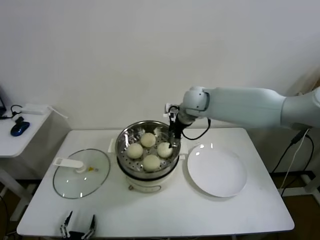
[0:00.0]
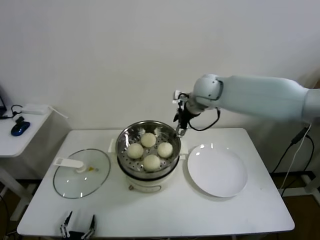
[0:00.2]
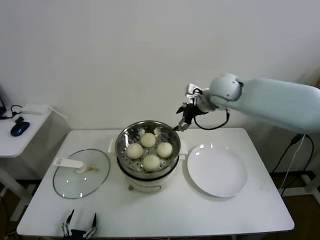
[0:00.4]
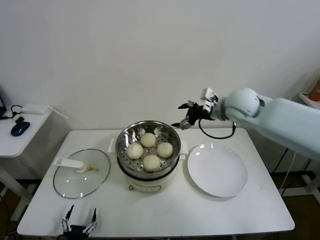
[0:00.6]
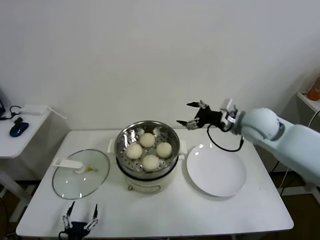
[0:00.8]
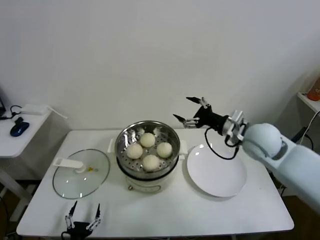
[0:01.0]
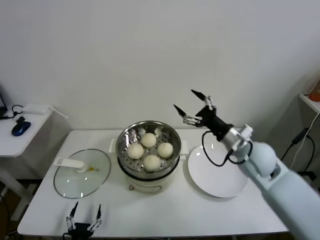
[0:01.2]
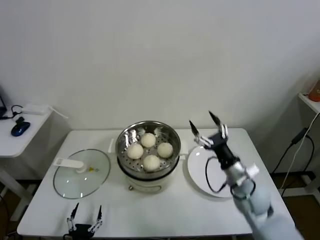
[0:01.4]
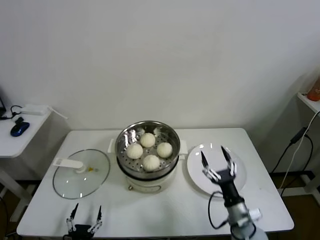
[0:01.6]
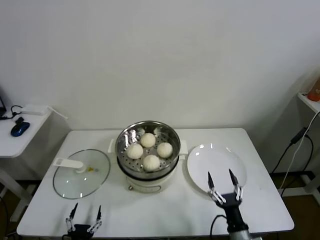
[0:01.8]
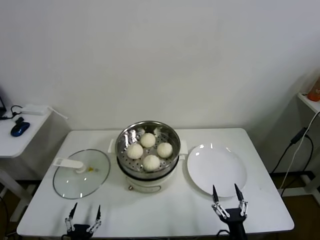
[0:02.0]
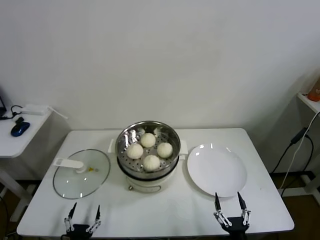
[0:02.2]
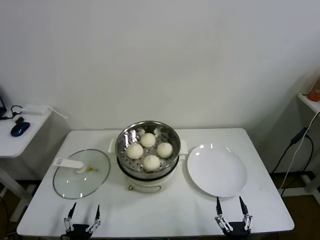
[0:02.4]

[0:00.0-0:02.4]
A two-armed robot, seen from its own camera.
Task of the whole recording: take steamed baozi put them in steamer.
0:00.0 to 0:01.2: The right gripper travels backward and to the right by some 20 cm.
0:01.2 to 0:02.4: The right gripper travels backward and downward by approximately 40 cm.

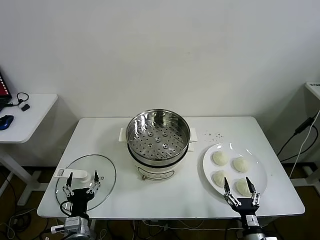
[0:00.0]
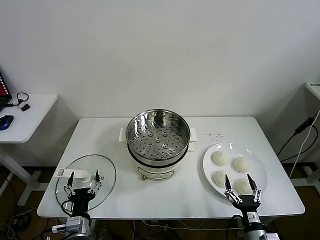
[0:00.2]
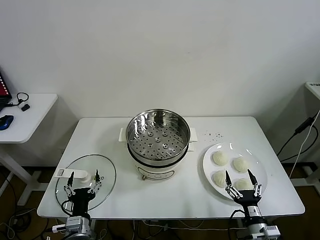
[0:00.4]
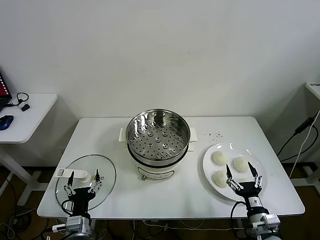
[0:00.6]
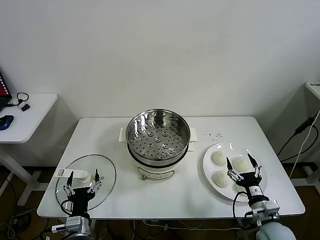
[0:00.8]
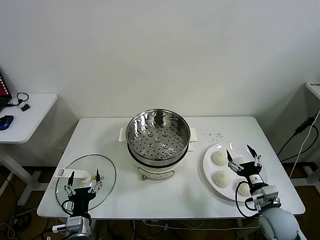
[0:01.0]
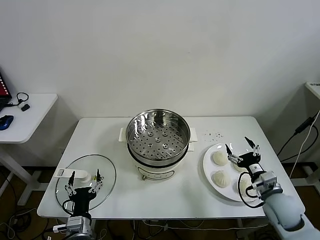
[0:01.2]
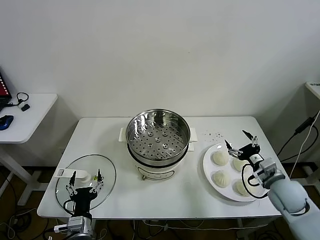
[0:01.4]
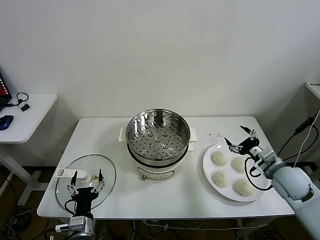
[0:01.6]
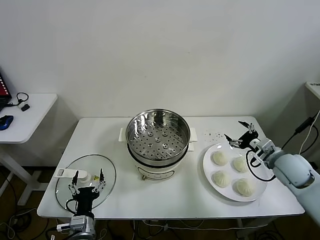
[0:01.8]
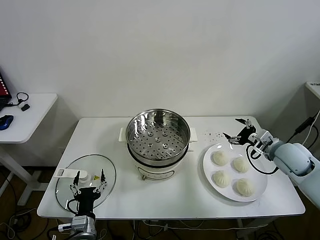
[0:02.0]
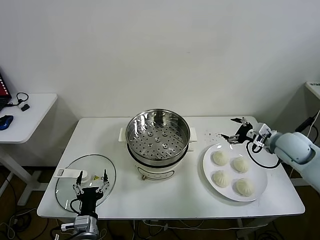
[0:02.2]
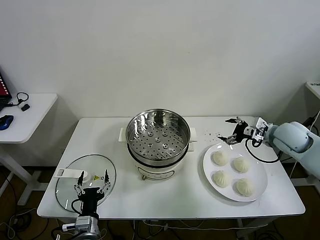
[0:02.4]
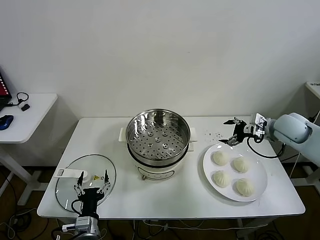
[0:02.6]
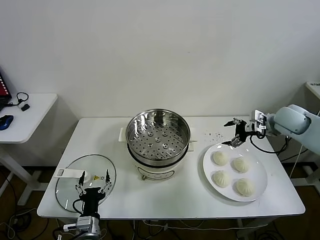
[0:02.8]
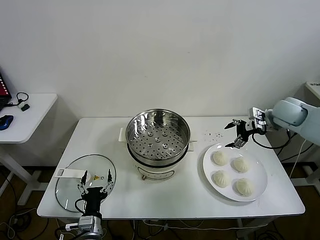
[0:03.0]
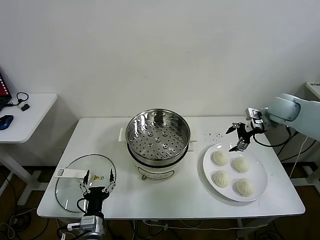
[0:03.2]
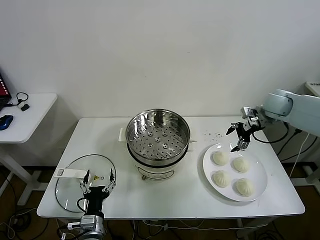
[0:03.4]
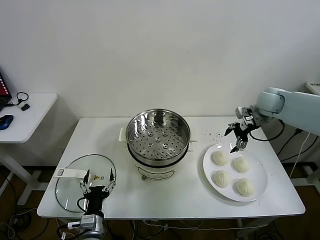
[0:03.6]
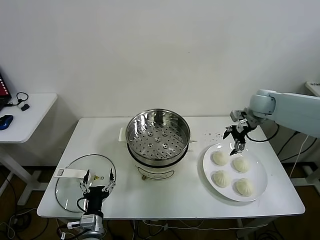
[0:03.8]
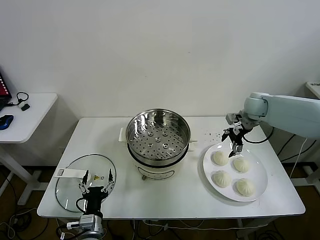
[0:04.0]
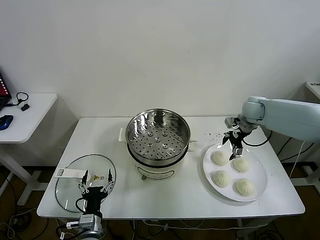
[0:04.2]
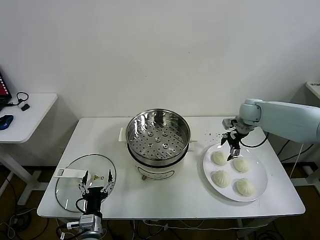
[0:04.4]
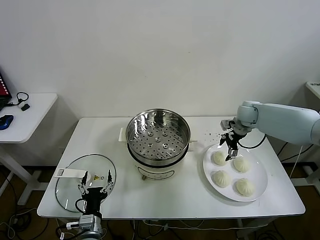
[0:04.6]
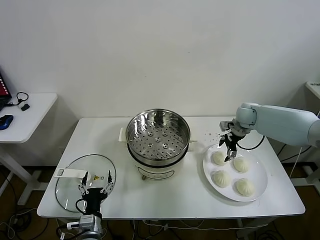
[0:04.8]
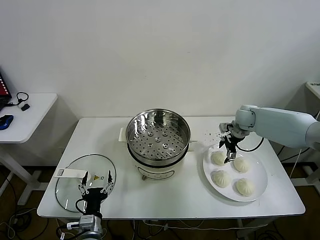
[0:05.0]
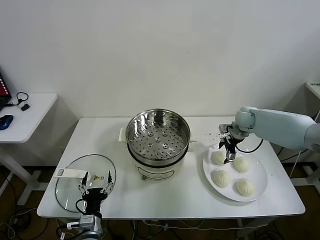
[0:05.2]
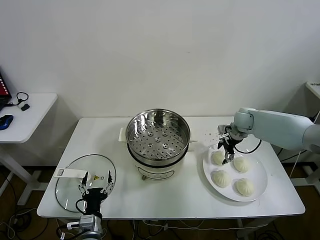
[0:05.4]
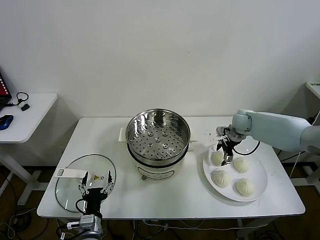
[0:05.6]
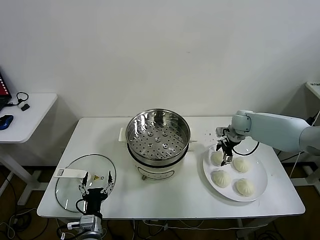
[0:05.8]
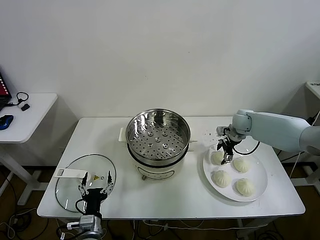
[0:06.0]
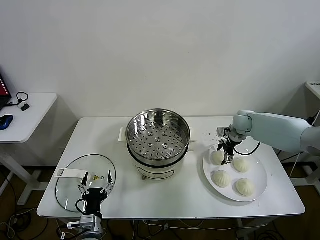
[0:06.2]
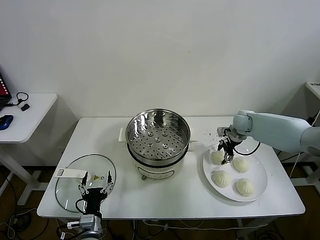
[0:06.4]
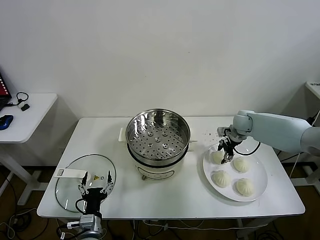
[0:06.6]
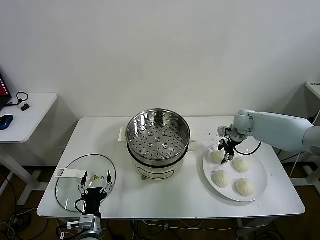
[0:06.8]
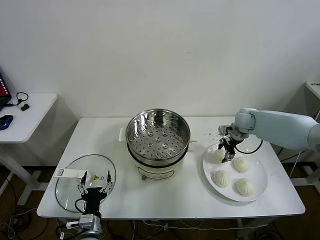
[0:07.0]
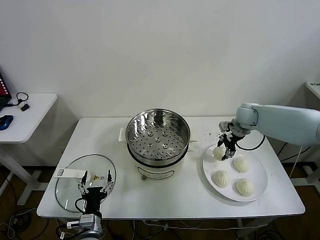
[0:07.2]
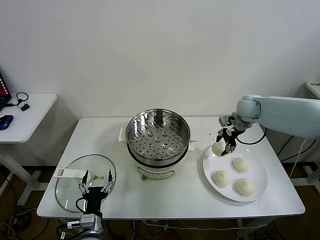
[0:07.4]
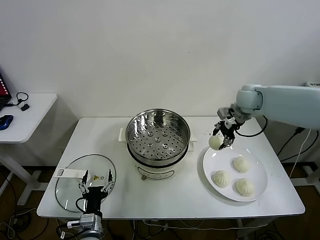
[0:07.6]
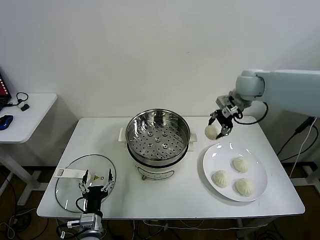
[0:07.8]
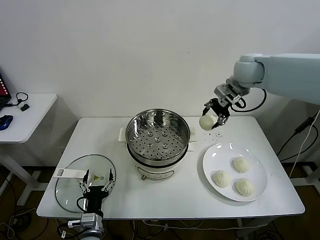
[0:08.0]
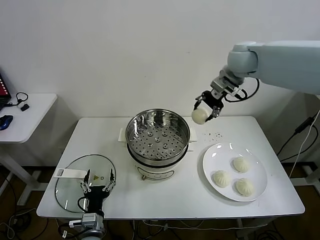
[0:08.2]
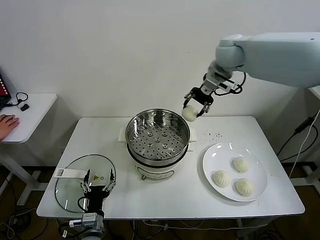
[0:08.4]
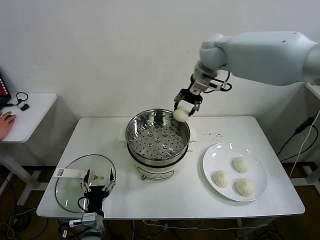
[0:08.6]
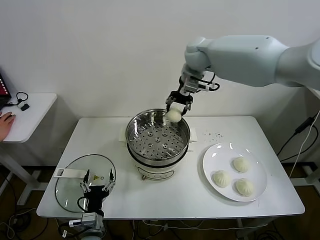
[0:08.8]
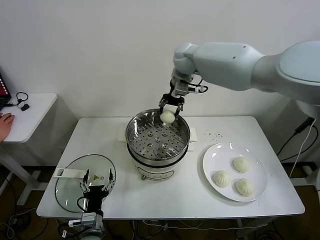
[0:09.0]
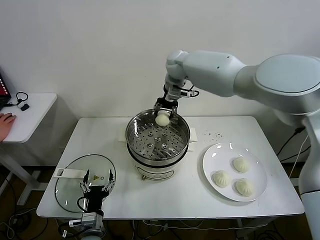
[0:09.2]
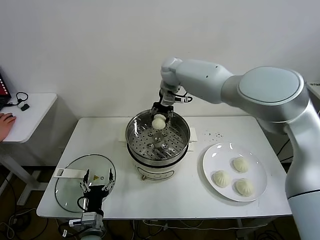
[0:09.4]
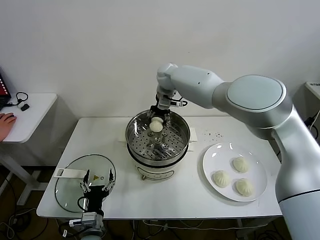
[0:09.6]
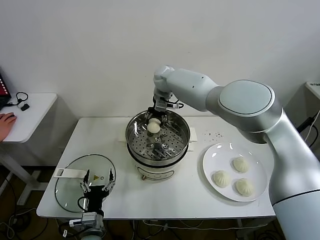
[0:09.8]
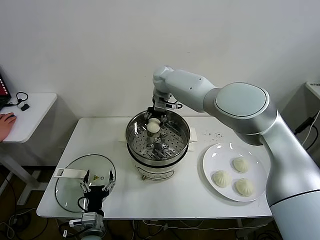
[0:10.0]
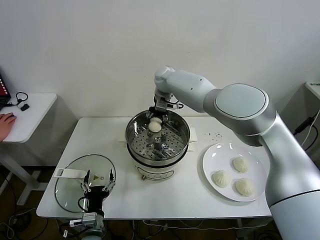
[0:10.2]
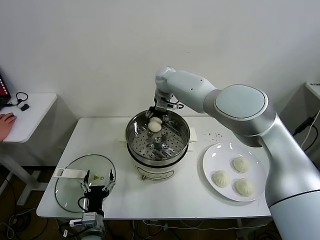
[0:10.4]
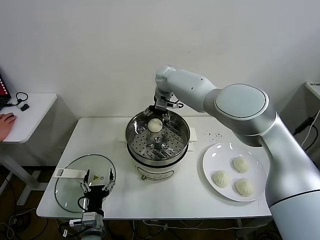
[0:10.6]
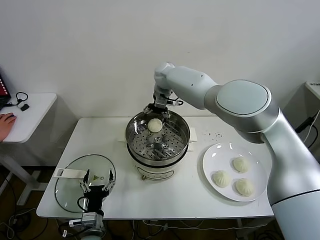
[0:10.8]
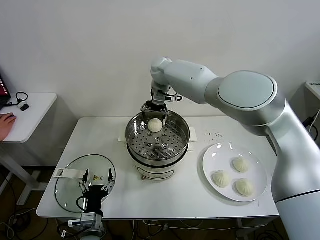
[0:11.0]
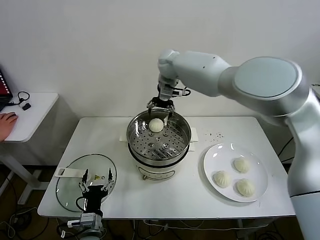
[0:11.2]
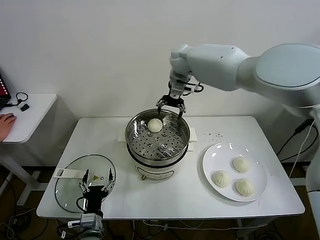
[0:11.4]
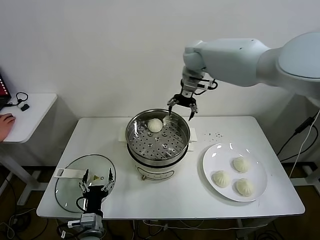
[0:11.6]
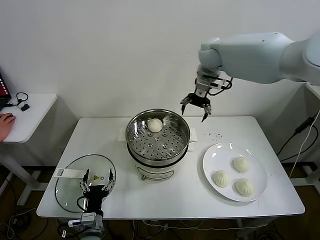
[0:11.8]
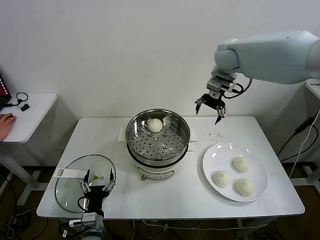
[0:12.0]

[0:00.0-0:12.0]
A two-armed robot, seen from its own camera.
Task of the whole recording: take steamed baozi put them in steamer.
Step, 0:00.0 to 0:06.8: Grasp the baozi in the plate with right gripper.
Step, 0:07.0 to 0:10.6: Place the baozi on the steamer with right gripper.
0:01.6 to 0:03.0: The right gripper is displaced forward and upward by approximately 20 cm.
0:03.0 to 0:04.4: The right gripper travels downward, forward and to the left by some 10 cm.
0:04.4 to 0:06.0: The grippers move only a little.
0:06.0 to 0:07.6: The right gripper moves upward, approximately 15 cm.
0:07.6 to 0:09.0: The right gripper shifts roughly 20 cm to the left.
0:09.0 to 0:10.4: The right gripper shifts some 10 cm downward and to the left.
0:10.4 to 0:12.0: The right gripper moves to the right and upward, some 25 cm.

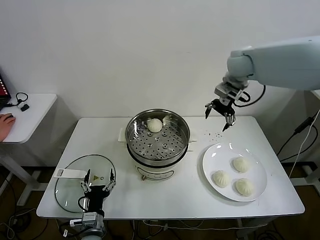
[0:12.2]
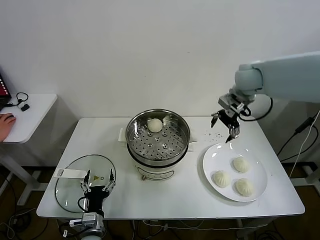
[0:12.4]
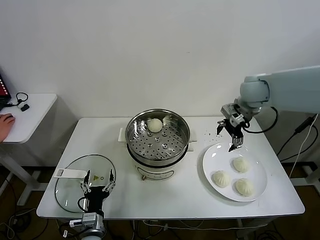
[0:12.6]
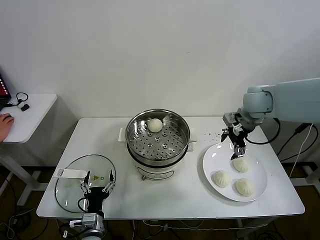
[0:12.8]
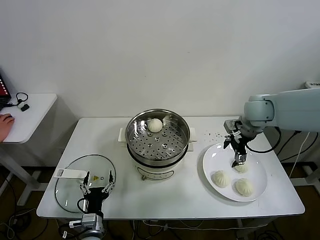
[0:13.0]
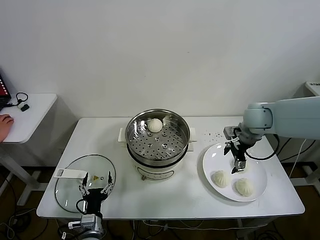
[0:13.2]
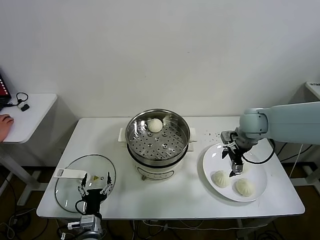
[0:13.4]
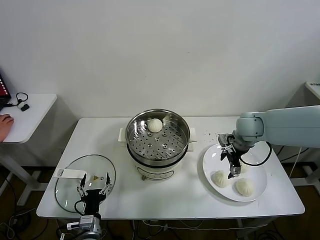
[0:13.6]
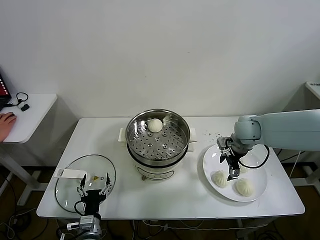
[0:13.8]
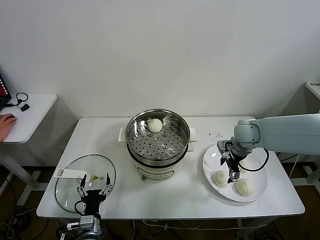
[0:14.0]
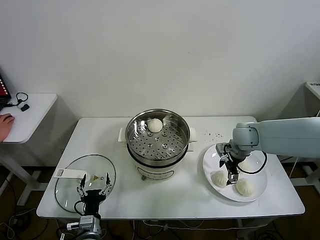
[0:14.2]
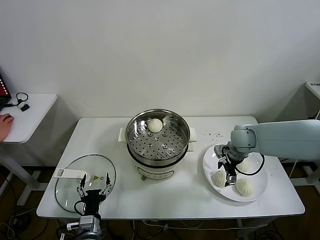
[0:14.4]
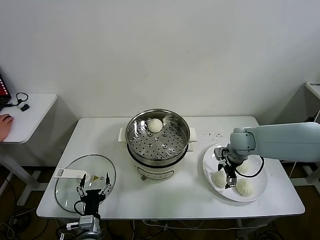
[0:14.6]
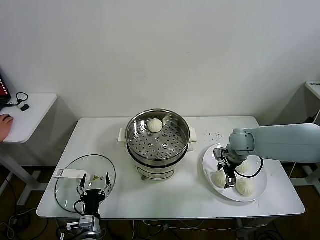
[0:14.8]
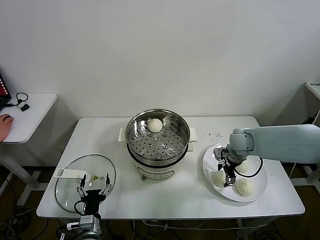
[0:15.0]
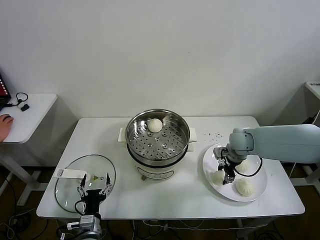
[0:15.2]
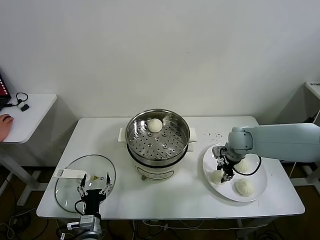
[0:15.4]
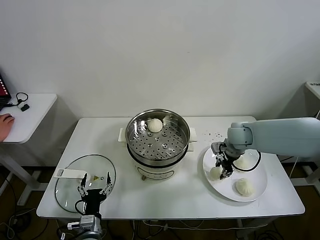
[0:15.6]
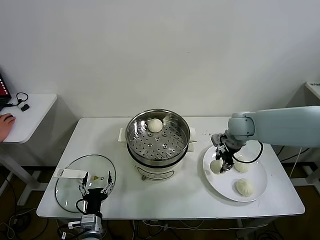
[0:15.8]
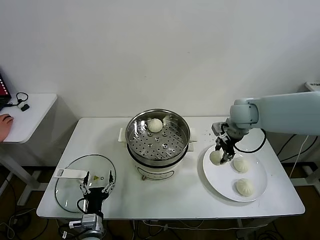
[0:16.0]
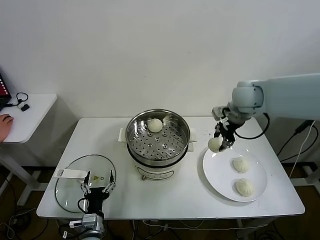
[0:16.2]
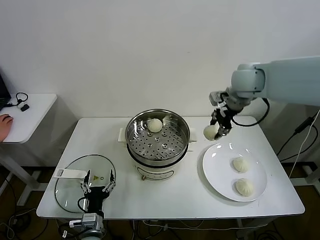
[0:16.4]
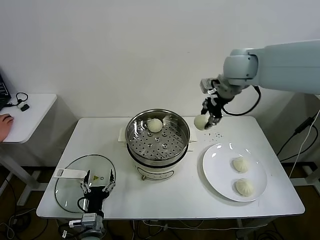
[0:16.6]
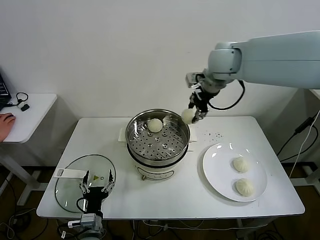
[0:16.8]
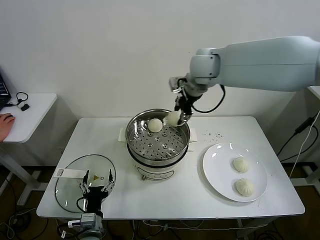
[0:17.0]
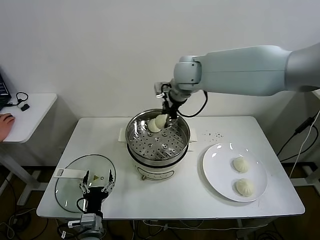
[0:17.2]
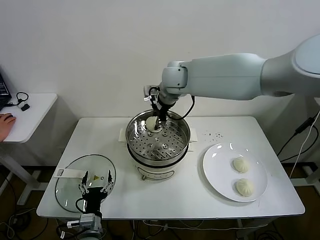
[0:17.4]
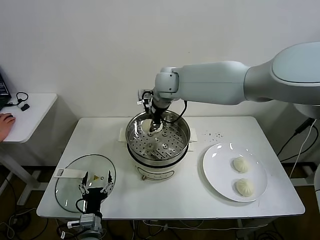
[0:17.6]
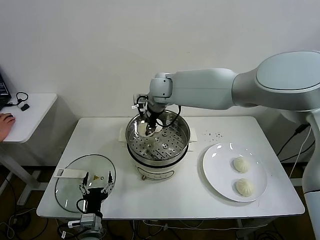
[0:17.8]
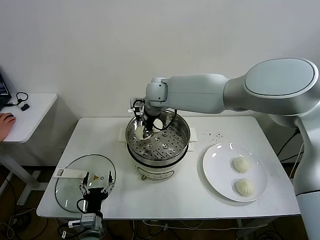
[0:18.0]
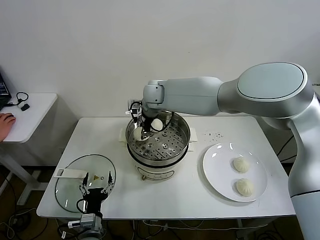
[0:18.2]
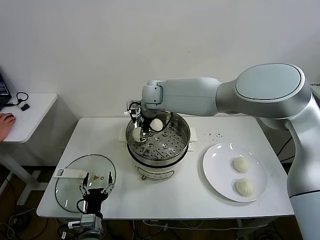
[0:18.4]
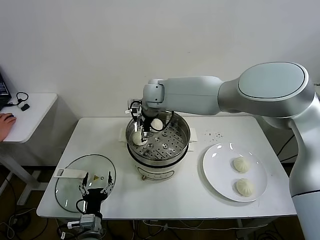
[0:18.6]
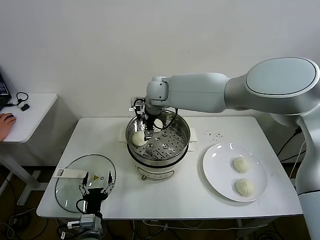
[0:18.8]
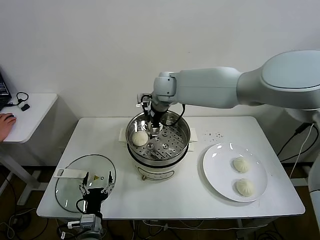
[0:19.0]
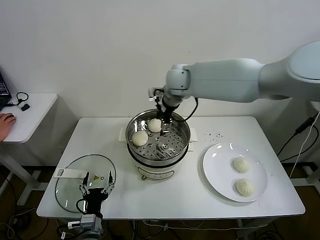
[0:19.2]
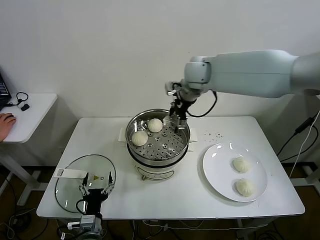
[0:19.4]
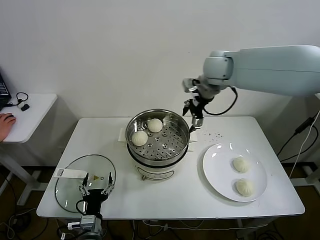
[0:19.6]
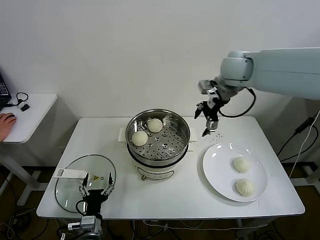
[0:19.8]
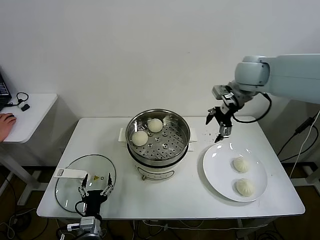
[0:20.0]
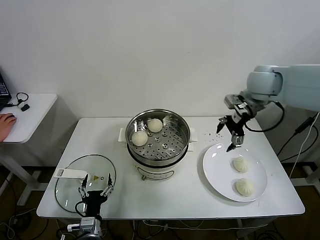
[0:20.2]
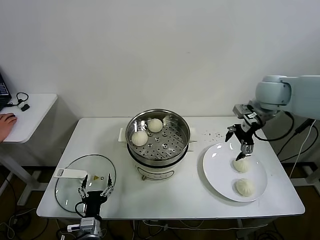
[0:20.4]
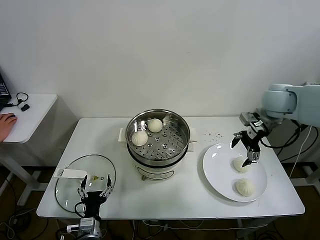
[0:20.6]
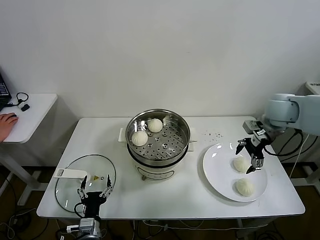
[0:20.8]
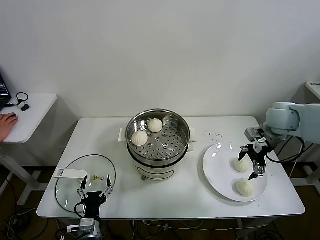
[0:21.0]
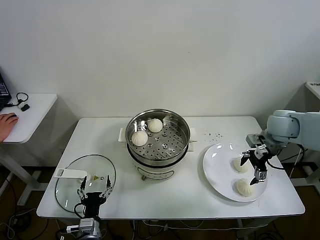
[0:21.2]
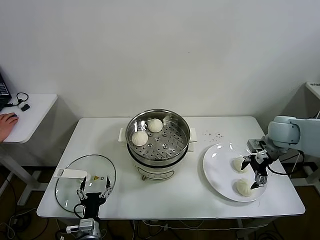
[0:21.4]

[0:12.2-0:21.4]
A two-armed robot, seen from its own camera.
Task of the whole recording: take steamed baozi put them in steamer.
Step, 0:12.2 to 0:15.4: Grasp the baozi in the plate with right gripper.
Step, 0:15.6 to 0:18.6: Place the baozi on the steamer with right gripper.
0:12.2 to 0:13.8: The right gripper heads downward and backward, covering about 20 cm.
0:13.8 to 0:15.2: The right gripper travels downward by some 5 cm, and closes up.
0:15.2 to 0:16.8: The right gripper heads upward and to the left, covering approximately 30 cm.
0:16.8 to 0:18.4: The right gripper heads to the left and downward, covering approximately 25 cm, and opens.
0:18.4 to 0:19.8: The right gripper moves to the right and upward, some 25 cm, and opens its fingers.
0:19.8 to 0:21.4: The right gripper heads downward, to the right and backward, covering about 25 cm.
